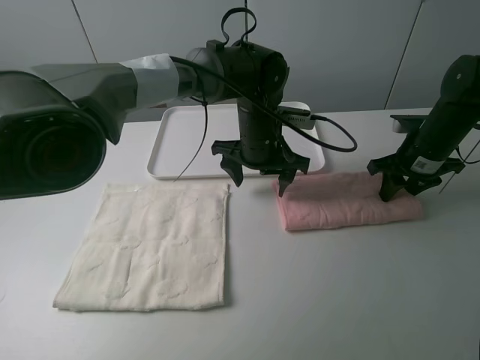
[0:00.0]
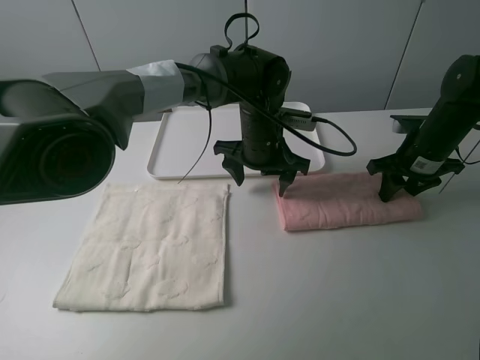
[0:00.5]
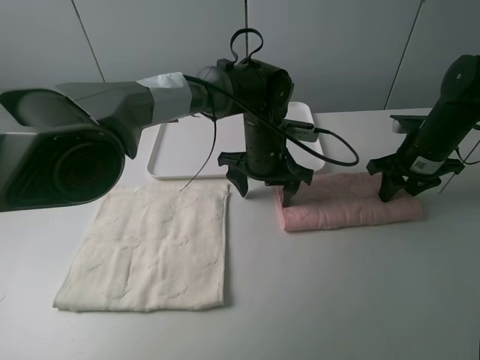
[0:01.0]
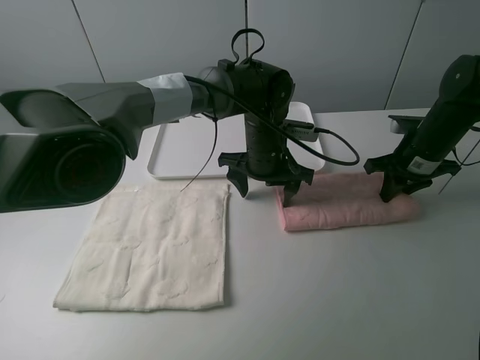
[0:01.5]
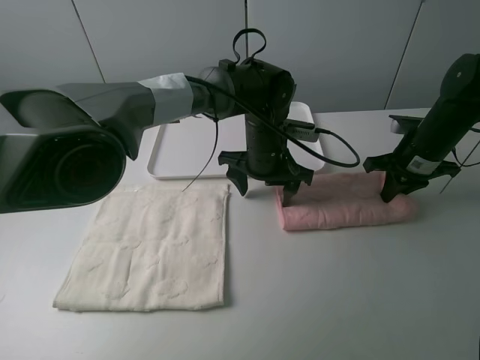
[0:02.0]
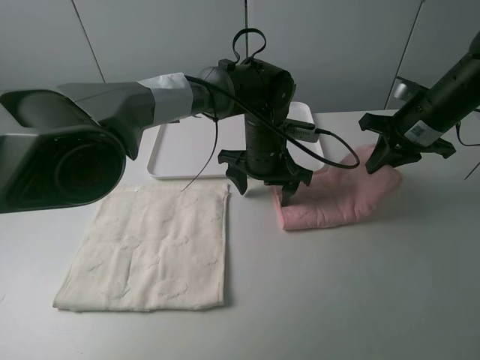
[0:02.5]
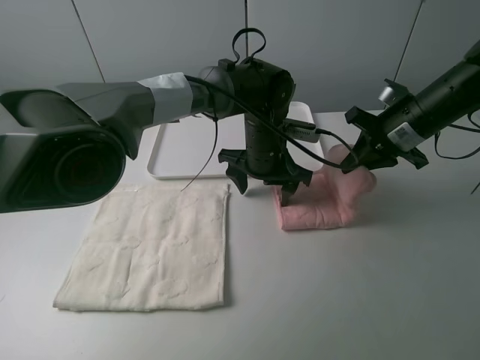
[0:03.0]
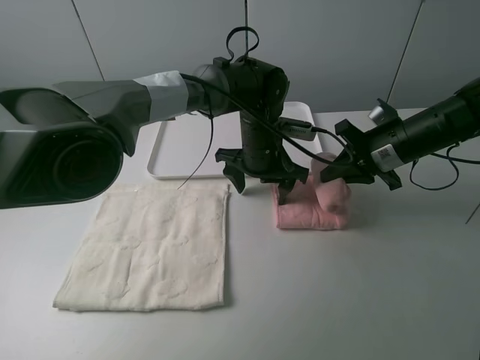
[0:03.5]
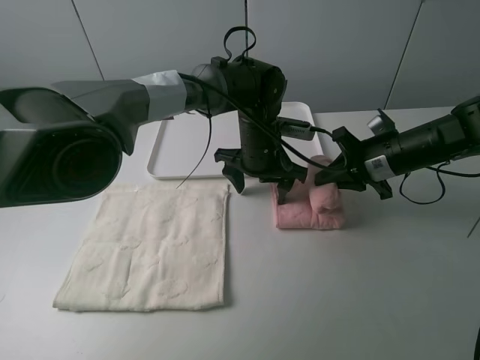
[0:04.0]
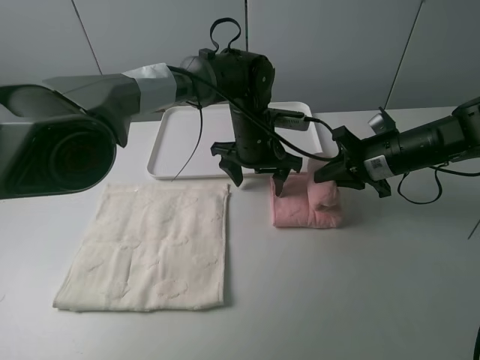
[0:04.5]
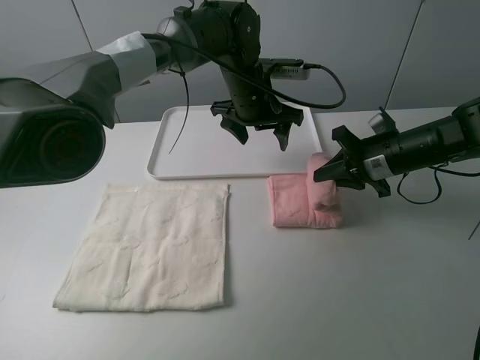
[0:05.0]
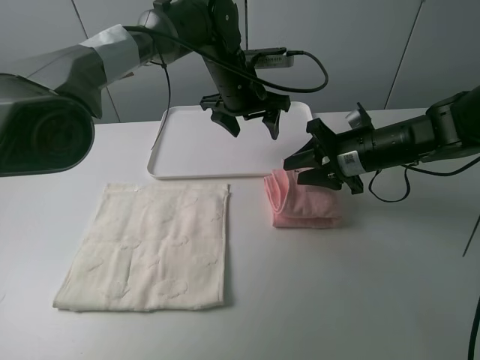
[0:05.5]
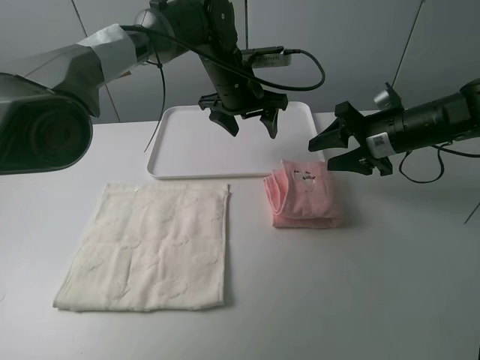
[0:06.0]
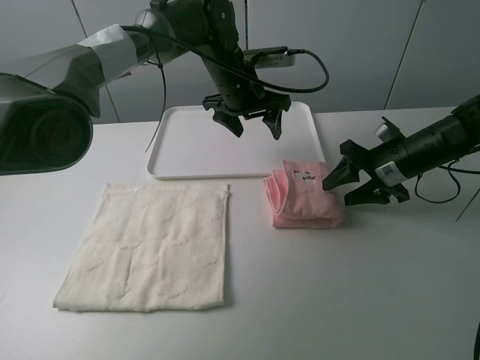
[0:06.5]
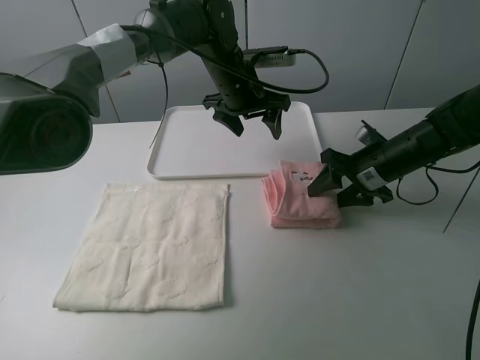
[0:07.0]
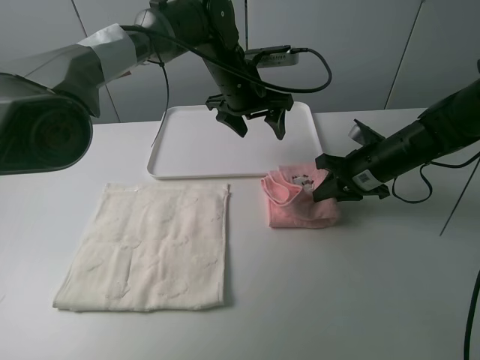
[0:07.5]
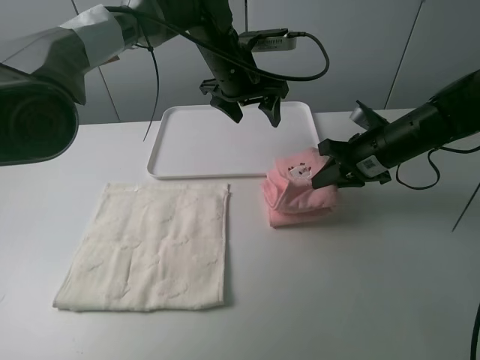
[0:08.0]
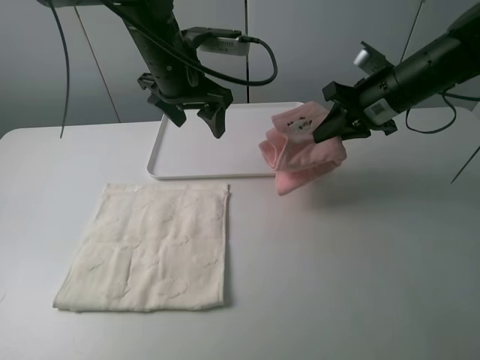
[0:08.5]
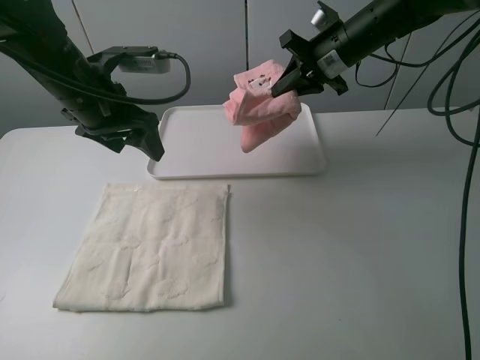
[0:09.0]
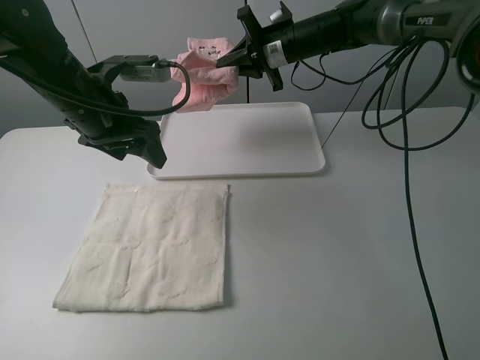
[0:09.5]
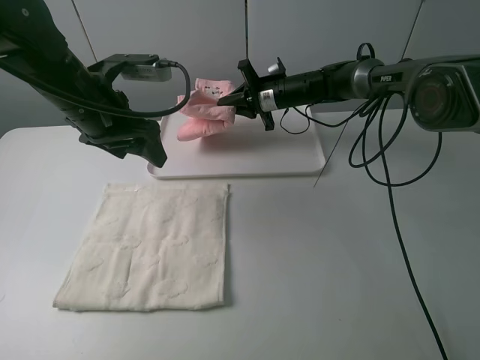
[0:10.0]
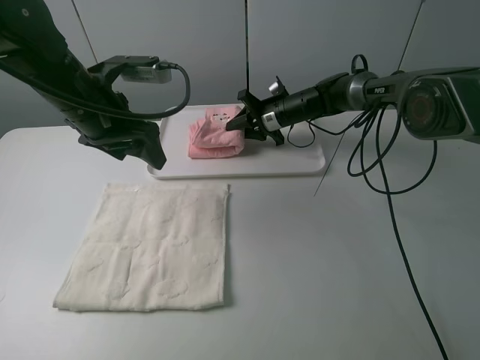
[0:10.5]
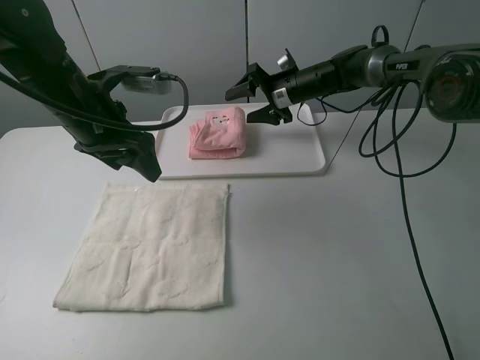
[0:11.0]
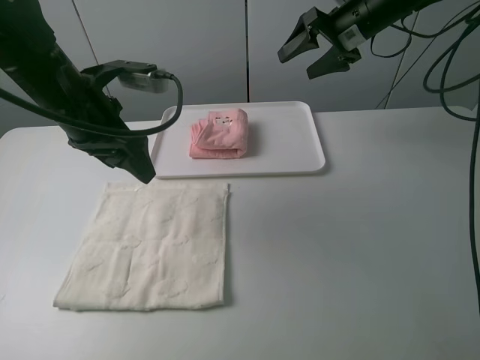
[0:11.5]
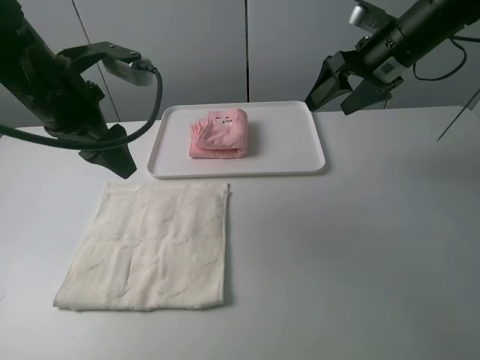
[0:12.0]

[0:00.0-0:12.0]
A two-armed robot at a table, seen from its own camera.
Task of the whole recording: fold one of the towels by two grippers and place it on the tray,then fold another towel by two grippers and place it on the folded towel.
Step, 0:00.0 to 0:02.0: Grasp the pink towel with the right gripper.
Step, 0:02.5 to 0:06.0: Fold the pink towel from right to left with right gripper.
Step, 0:06.5 to 0:07.5: Grasp the pink towel with the right gripper.
Step, 0:08.0 to 0:11.0: Move the pink towel to the plate with the right gripper.
0:00.0 to 0:02.0: The right gripper closes.
0:02.0 to 0:04.0: The right gripper shifts roughly 5 cm to the left.
0:04.0 to 0:06.0: The left gripper moves upward and forward, roughly 10 cm, while the right gripper opens its fingers.
0:06.0 to 0:08.0: The right gripper closes up.
0:08.0 to 0:10.0: The right gripper goes about 20 cm forward and to the left. Meanwhile the left gripper heads to the left and backward, covering roughly 20 cm.
0:10.0 to 0:12.0: The right gripper shifts approximately 25 cm upward, backward and to the right, and opens its fingers. The left gripper changes place by about 5 cm.

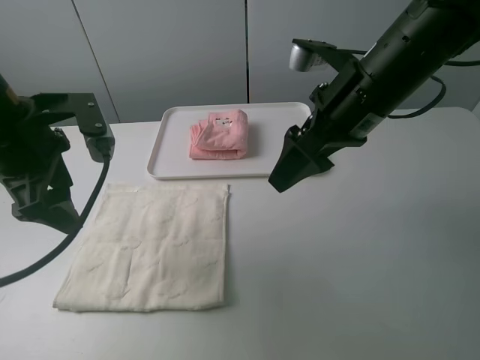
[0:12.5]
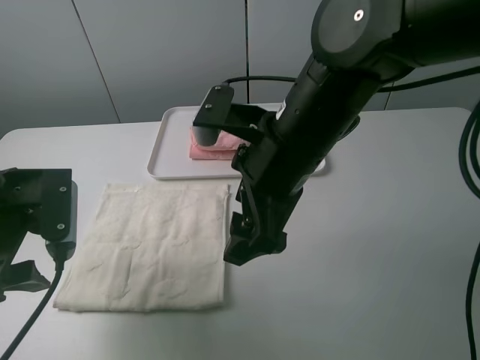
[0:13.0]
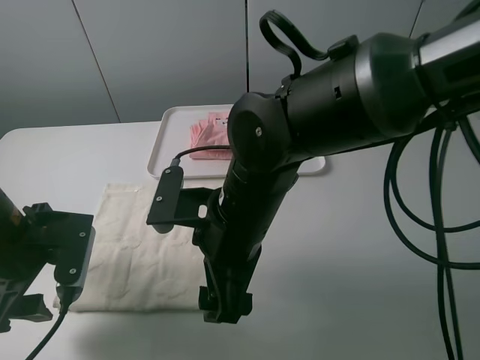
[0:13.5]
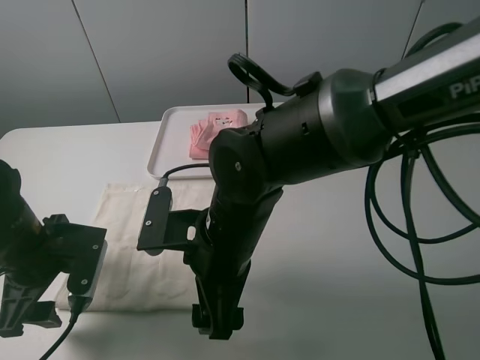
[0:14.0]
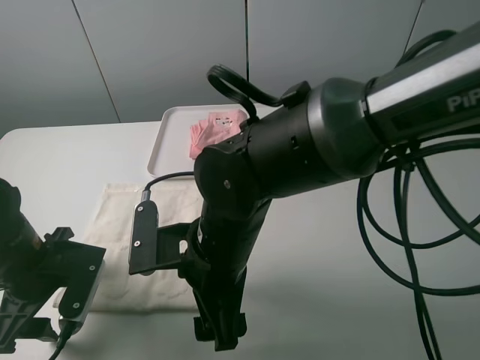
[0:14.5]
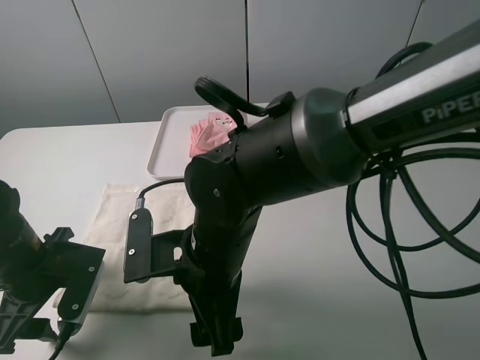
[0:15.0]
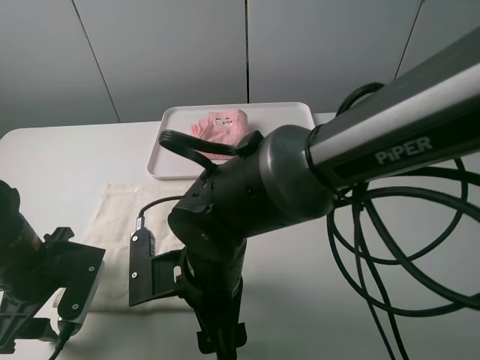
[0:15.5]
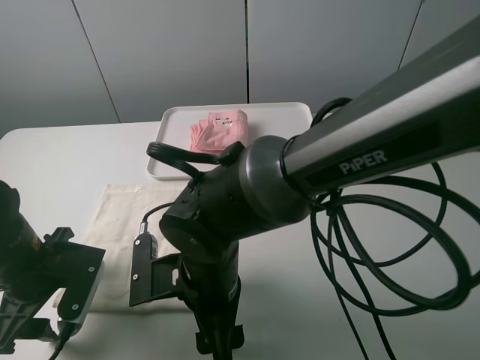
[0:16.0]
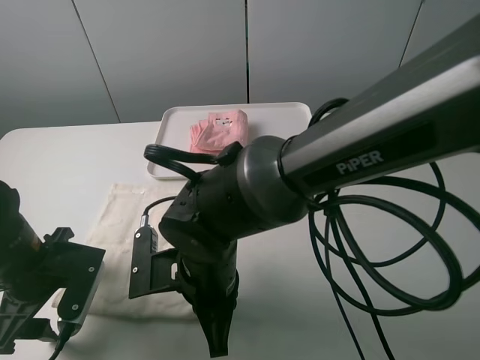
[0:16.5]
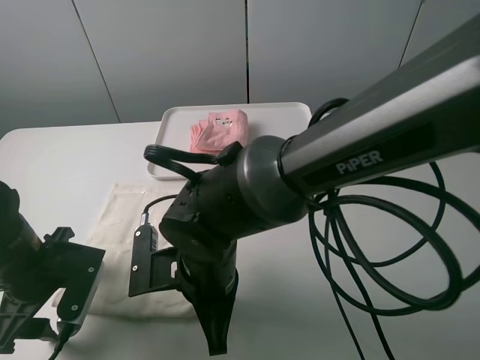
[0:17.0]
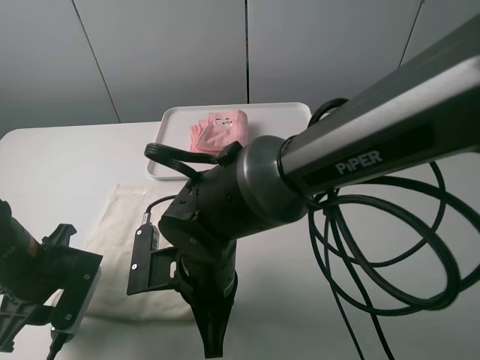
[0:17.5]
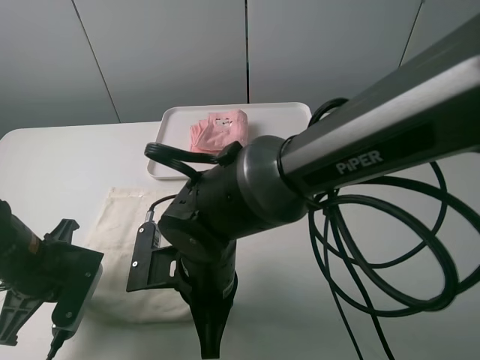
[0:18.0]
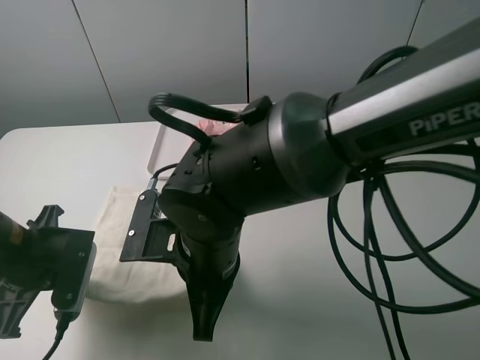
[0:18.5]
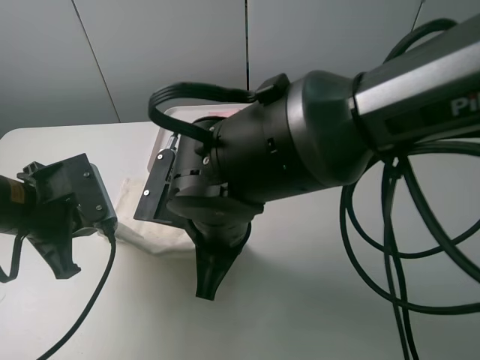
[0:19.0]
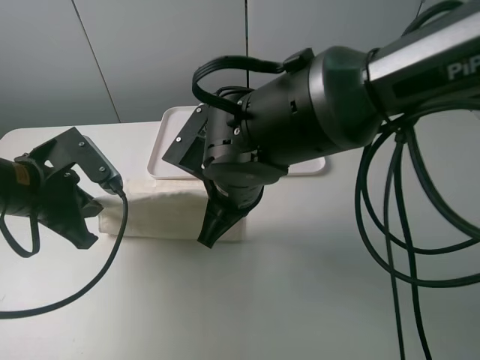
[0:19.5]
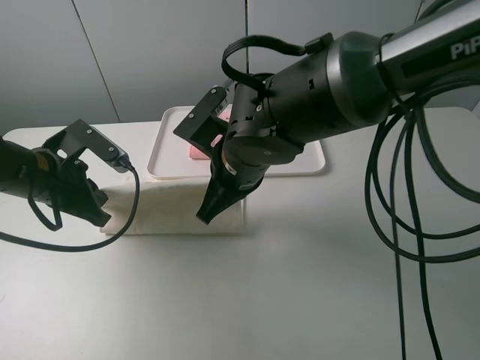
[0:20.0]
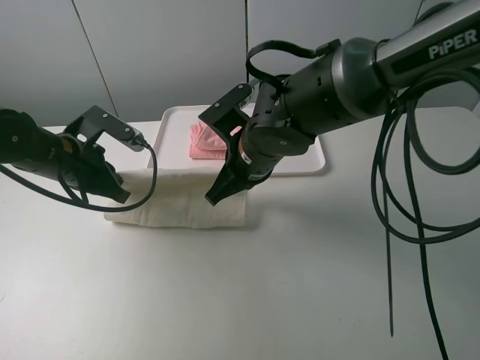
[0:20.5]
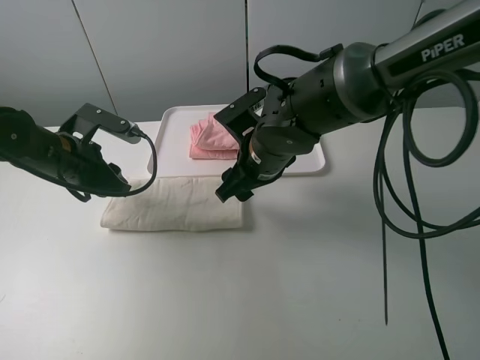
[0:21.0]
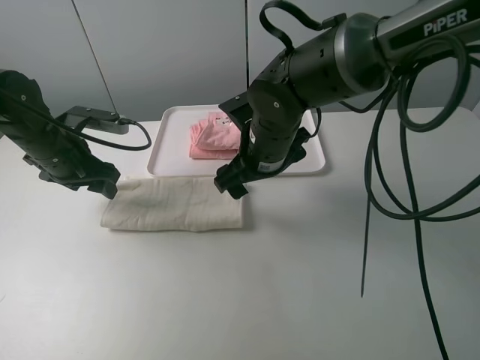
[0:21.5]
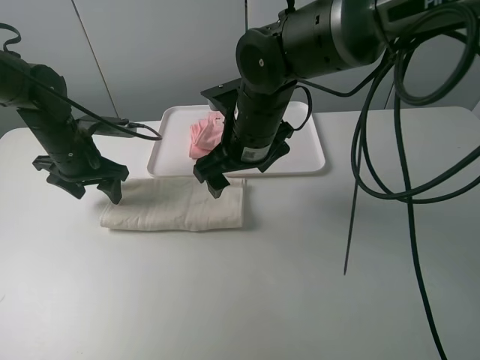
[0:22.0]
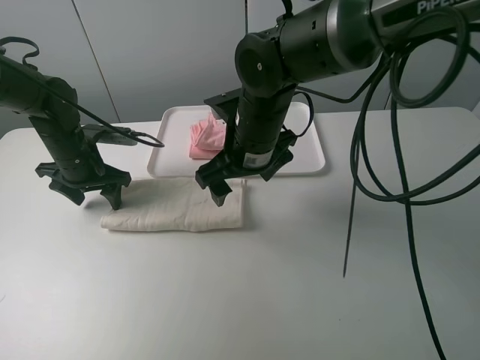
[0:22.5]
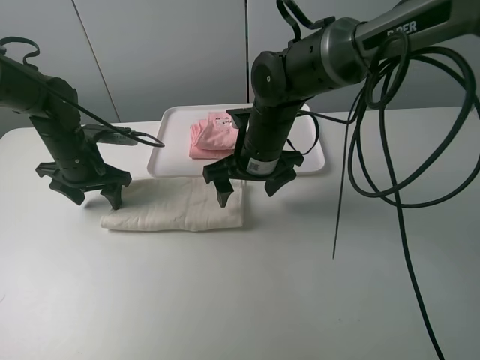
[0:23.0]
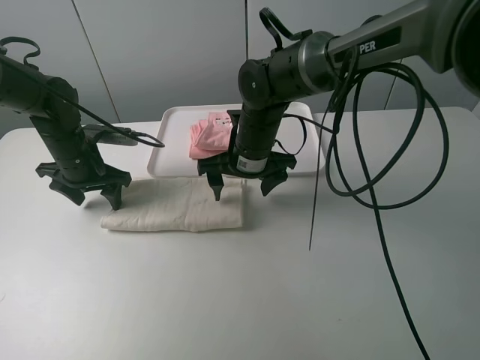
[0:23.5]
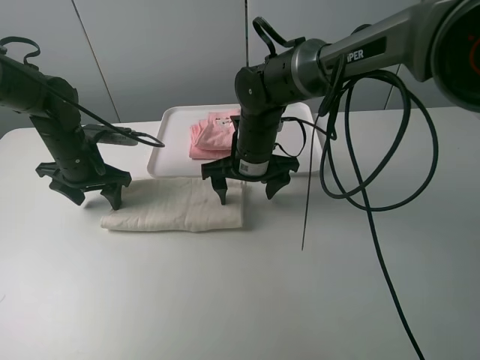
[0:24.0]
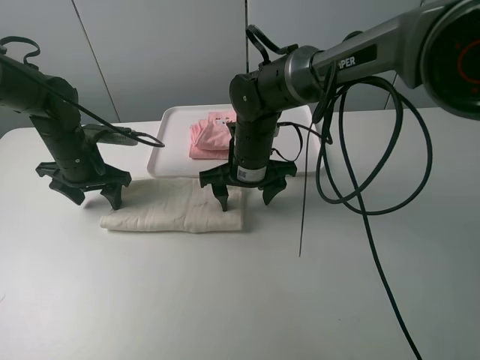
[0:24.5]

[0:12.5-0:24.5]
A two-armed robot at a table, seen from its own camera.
Task of the whole recording: fold one of the towels by two grippers and place it on the tray,then fold another towel by two grippers and place it on the folded towel.
Step, 0:12.5 to 0:17.5: Grasp the white towel with the left gripper.
Step, 0:18.5 to 0:21.0: Fold the white towel upwards with the left gripper.
Step, 0:21.5 to 0:22.5: Press the white towel with the left gripper.
0:12.5 to 0:14.5: The right gripper travels to the left, downward and backward by some 20 cm; the left gripper moves downward, about 15 cm.
0:14.5 to 0:16.5: The right gripper closes its fingers.
0:16.5 to 0:18.5: The left gripper closes its fingers.
0:18.5 to 0:20.5: The right gripper moves forward and to the right, roughly 15 cm; the left gripper heads forward, covering about 10 cm.
0:20.5 to 0:22.5: The right gripper opens; the left gripper is displaced forward by roughly 5 cm, and opens up.
0:22.5 to 0:24.5: The right gripper goes roughly 5 cm downward.

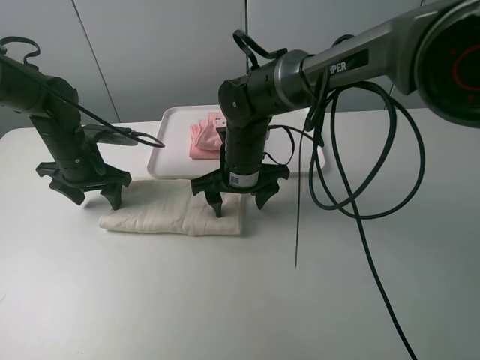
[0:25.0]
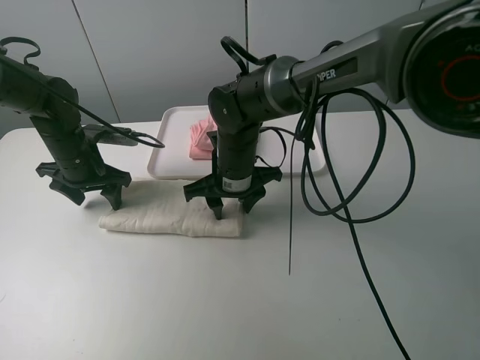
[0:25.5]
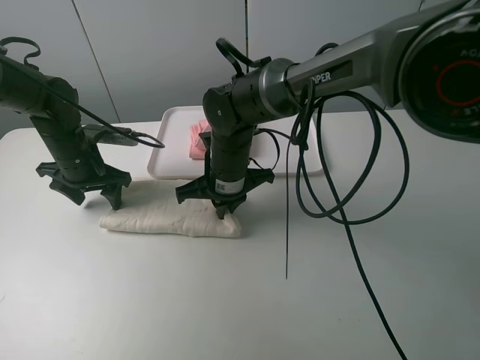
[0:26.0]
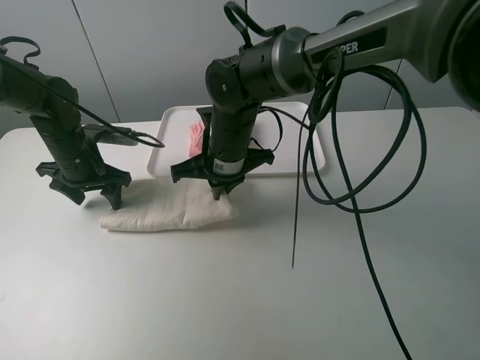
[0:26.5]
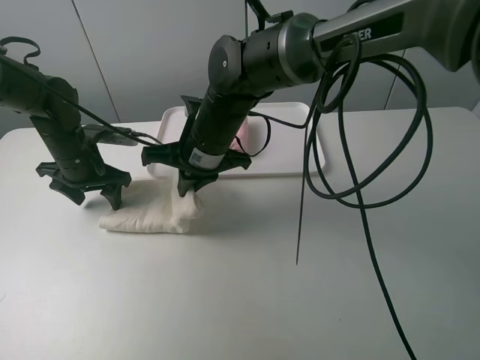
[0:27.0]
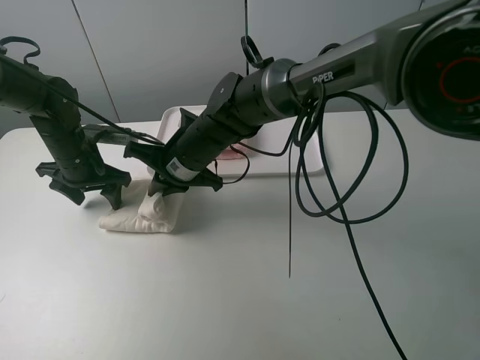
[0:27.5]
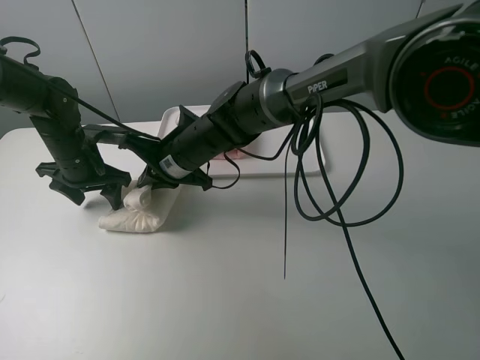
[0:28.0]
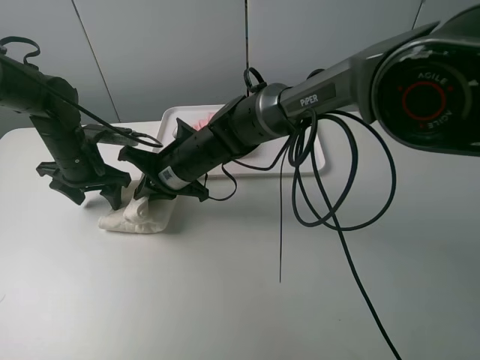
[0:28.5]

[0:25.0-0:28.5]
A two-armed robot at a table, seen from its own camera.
Task of the whole recording: fold one of the towels by two grippers and place it on the tray,then fold another towel by two grippers and place it on the folded towel.
0:25.0 to 0:27.0: The right gripper heads upward, covering roughly 5 cm, and closes up.
0:27.0 to 0:28.5: The right gripper is displaced downward by approximately 5 cm.
